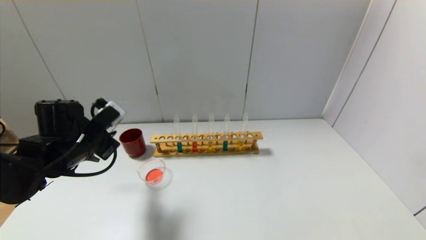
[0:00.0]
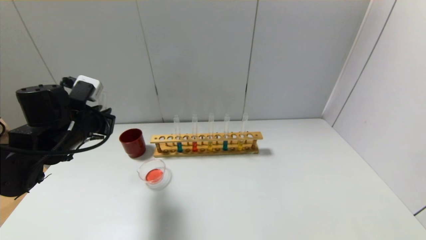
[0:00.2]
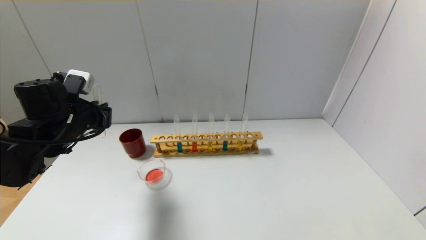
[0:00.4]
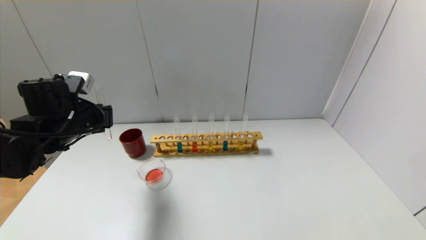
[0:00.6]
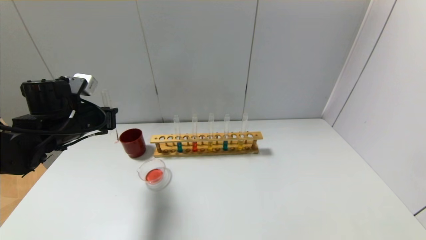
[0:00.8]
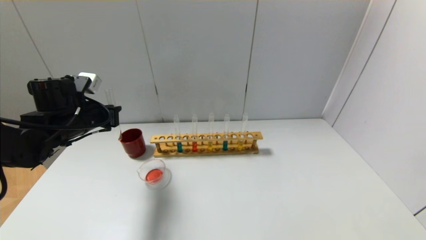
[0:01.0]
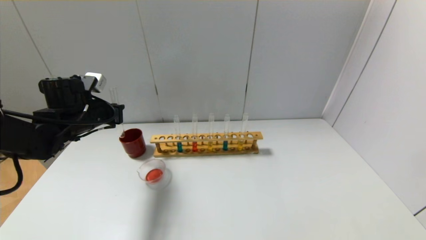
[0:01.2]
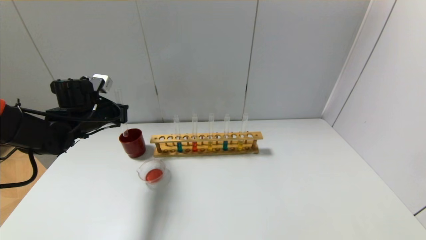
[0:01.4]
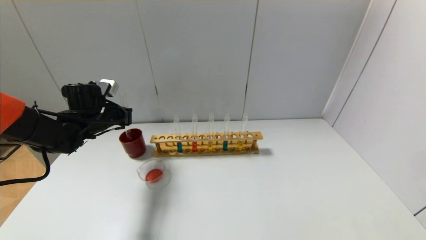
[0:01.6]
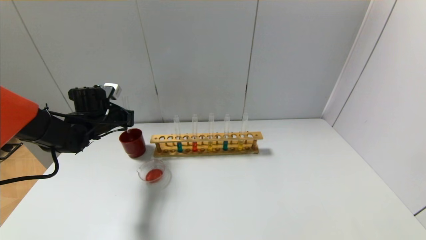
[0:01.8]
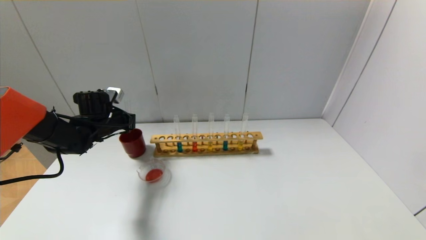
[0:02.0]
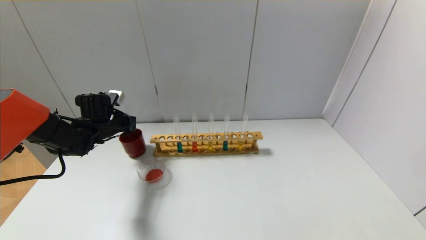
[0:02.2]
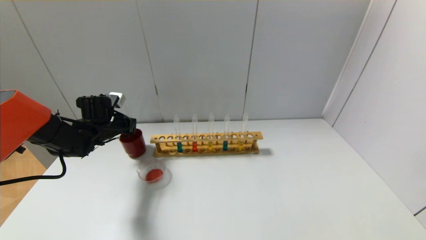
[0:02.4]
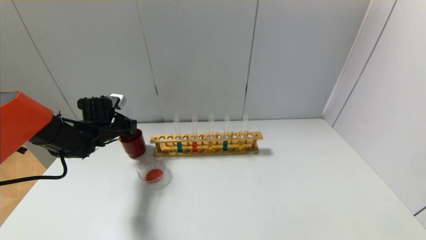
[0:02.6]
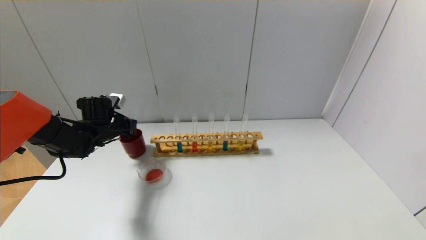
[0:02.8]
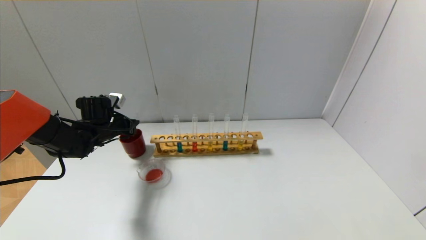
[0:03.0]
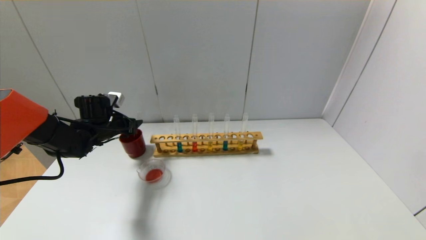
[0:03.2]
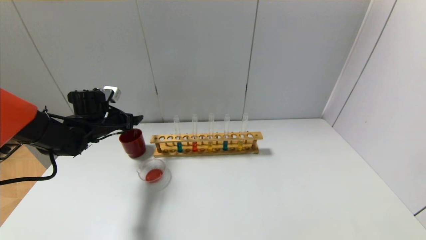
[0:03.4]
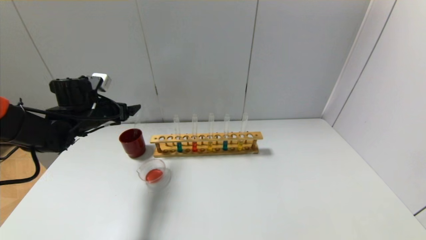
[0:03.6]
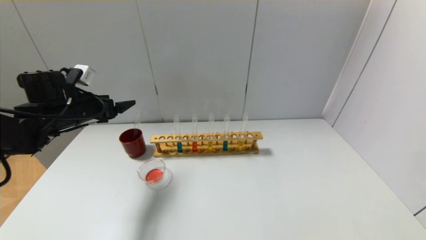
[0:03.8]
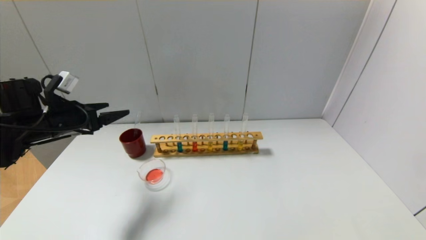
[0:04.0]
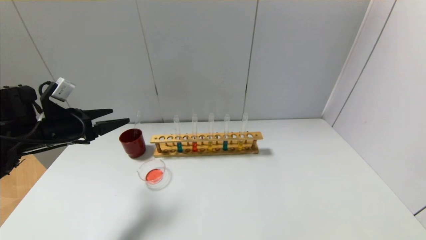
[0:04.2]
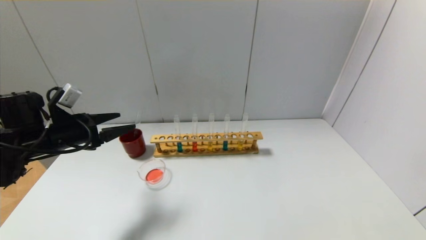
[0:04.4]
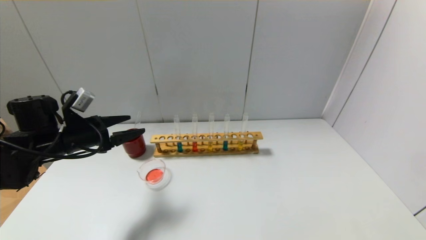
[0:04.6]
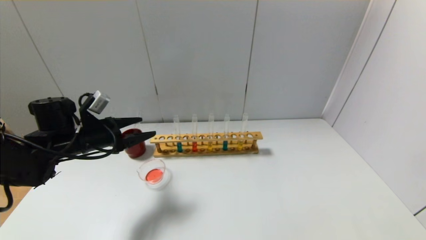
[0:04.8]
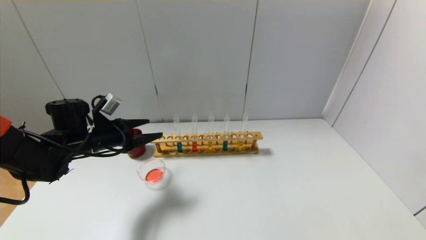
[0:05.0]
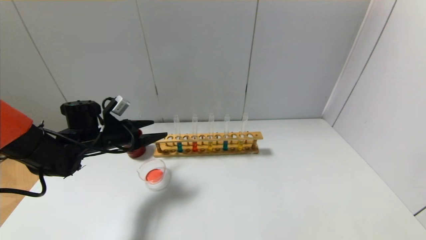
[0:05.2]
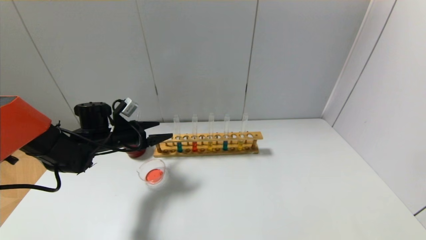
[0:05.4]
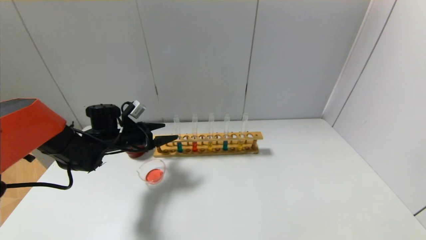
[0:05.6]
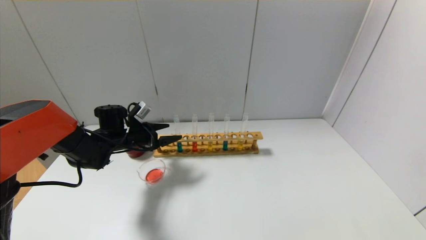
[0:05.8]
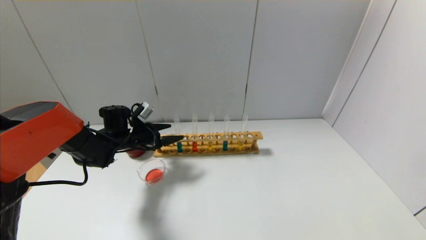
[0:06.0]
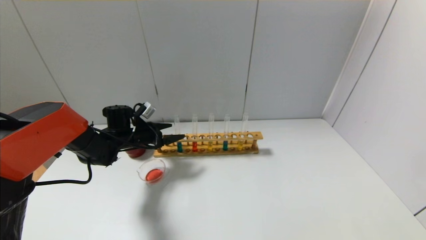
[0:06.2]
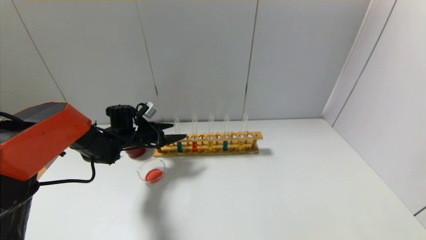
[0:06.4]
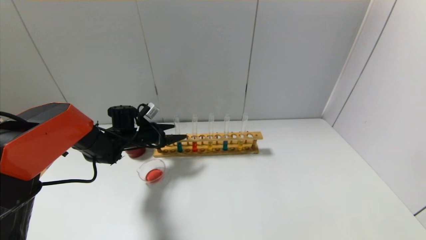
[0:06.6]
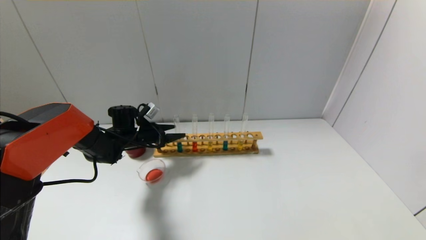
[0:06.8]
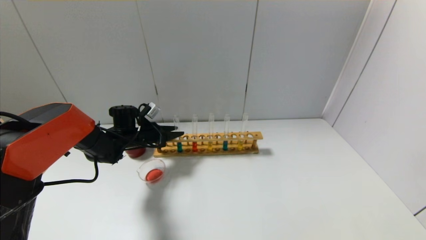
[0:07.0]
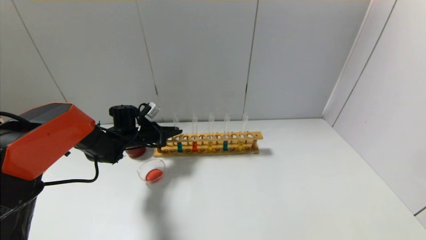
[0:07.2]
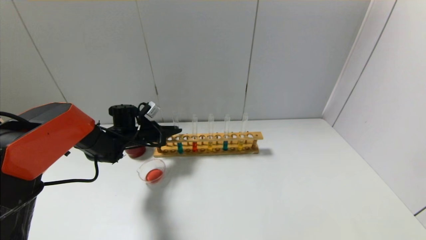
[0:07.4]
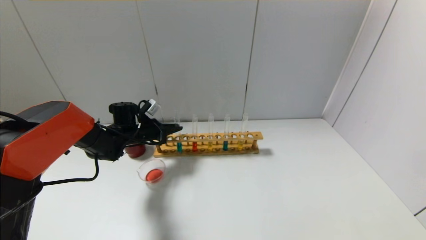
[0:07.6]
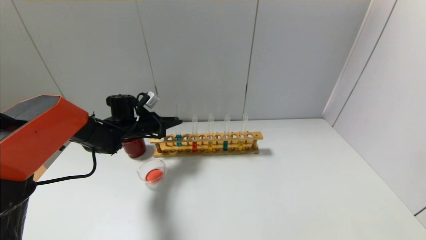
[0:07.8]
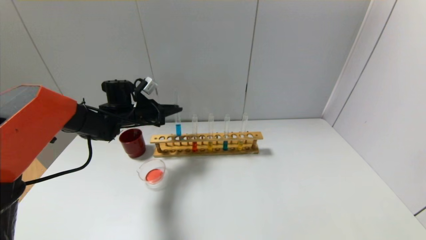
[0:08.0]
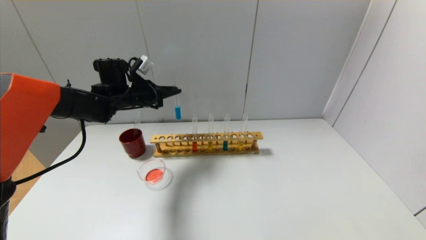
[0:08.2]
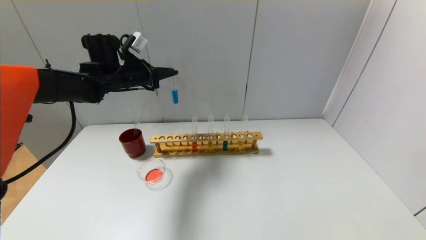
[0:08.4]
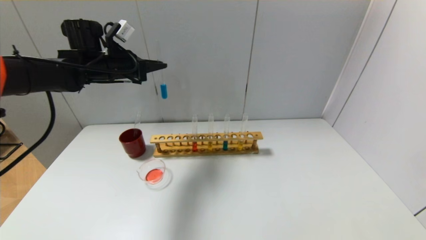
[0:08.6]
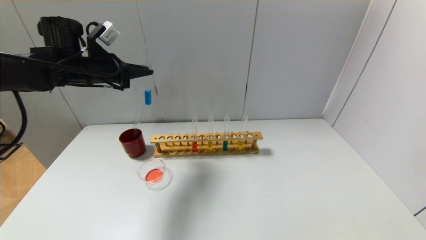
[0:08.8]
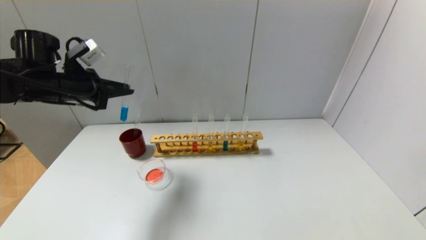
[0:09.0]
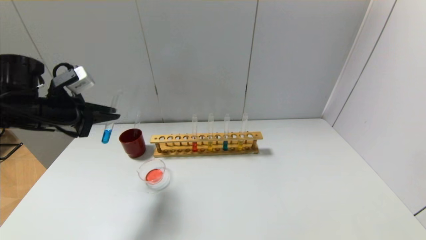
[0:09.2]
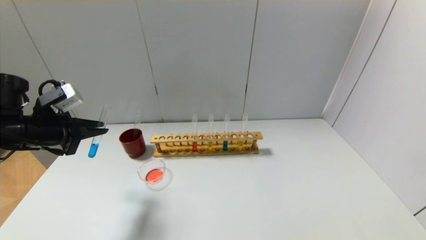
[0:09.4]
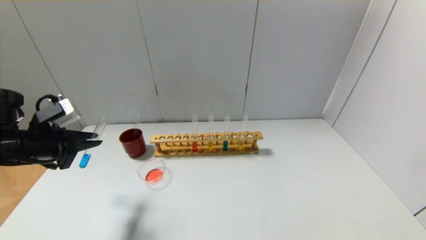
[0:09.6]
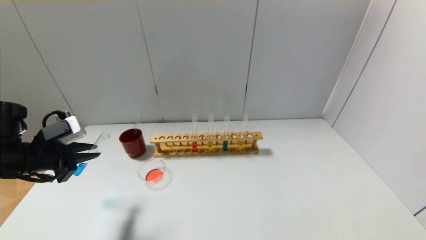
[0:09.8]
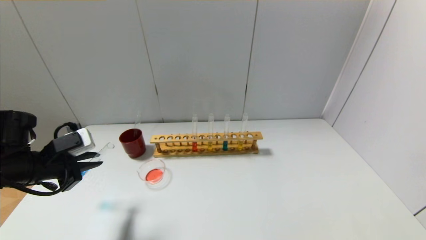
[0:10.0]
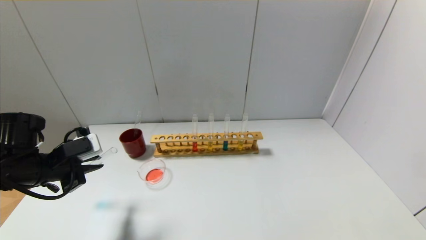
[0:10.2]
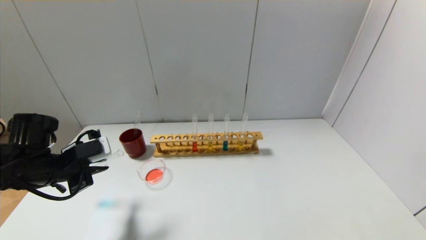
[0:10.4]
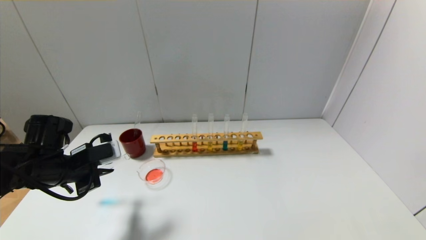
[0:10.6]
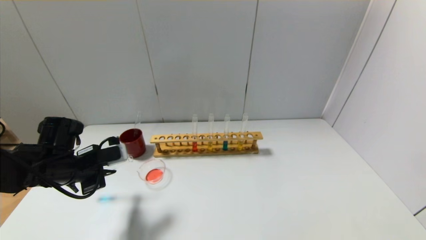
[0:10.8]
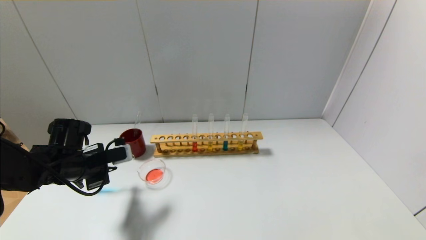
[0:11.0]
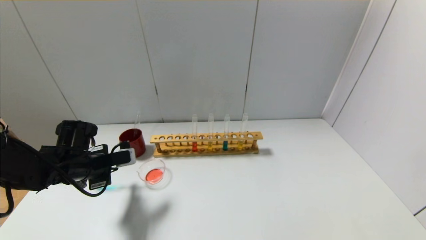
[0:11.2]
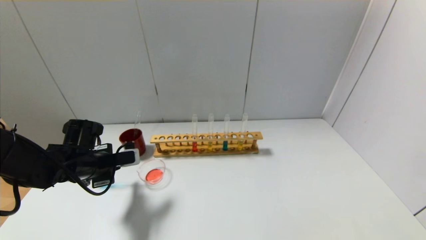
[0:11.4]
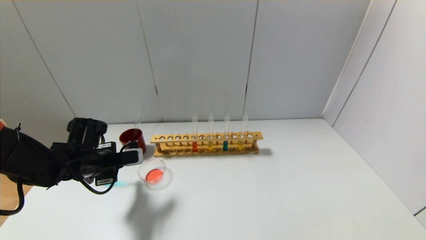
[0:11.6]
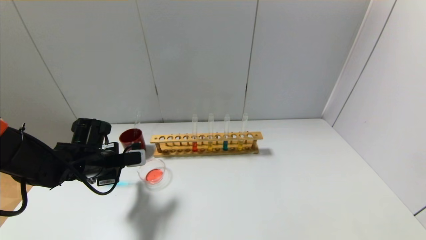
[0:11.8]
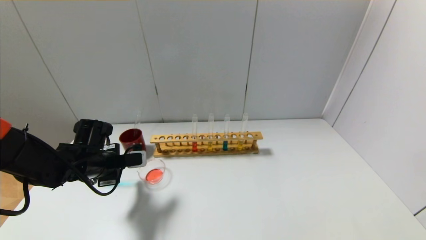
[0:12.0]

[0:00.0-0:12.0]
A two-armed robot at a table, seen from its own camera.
Step, 0.0 to 3.0 s: Place the test tube into the brown cup with the left gripper.
Step, 3.2 to 7.2 s: Grasp the blue reagent with the left gripper.
0.0 to 1.6 s: The left gripper goes approximately 10 cm forward.
1.6 to 3.0 s: The left gripper opens up.
3.0 to 4.4 s: The left gripper is displaced backward and upward by about 15 cm, and opens its fingers.
4.4 to 6.0 s: The left gripper is displaced forward, downward and to the right by some 15 cm.
6.0 to 7.6 s: The left gripper closes.
7.6 to 9.0 s: The left gripper heads upward, backward and to the left, covering approximately 20 cm.
9.0 to 10.4 s: The left gripper heads downward and backward, covering roughly 15 cm.
10.4 to 12.0 s: The left gripper heads forward, covering some 5 cm.

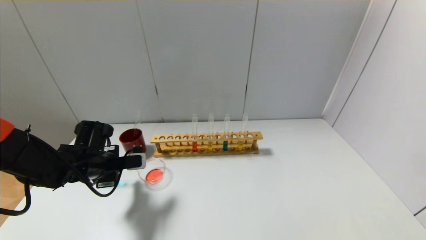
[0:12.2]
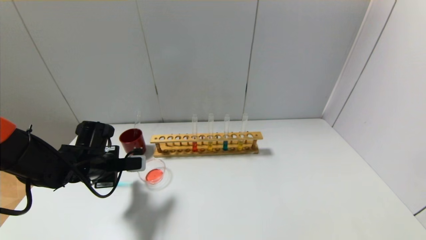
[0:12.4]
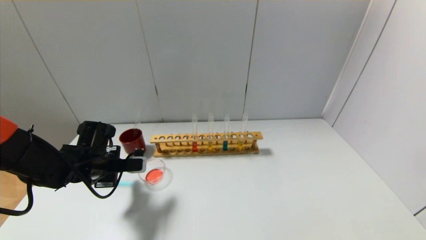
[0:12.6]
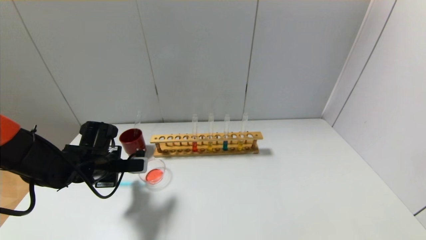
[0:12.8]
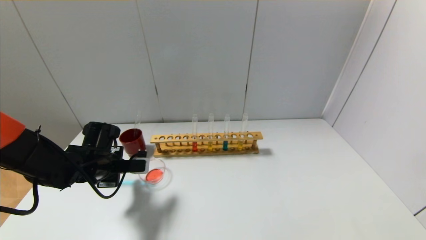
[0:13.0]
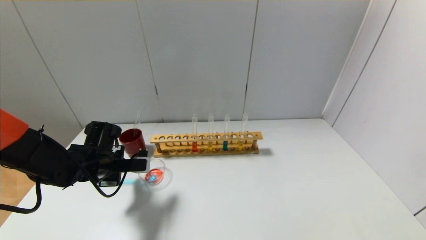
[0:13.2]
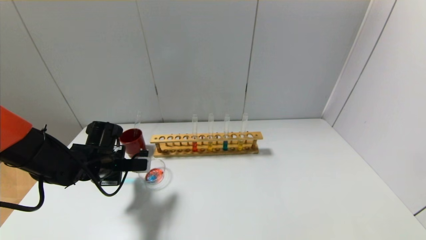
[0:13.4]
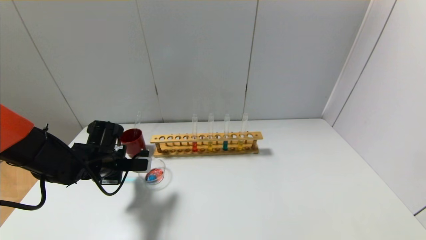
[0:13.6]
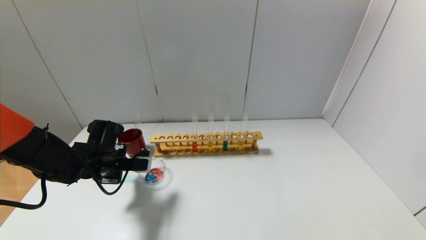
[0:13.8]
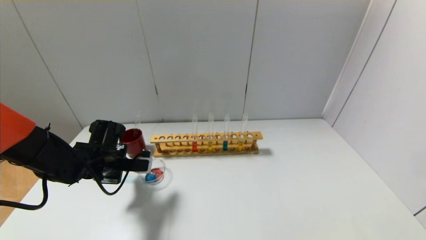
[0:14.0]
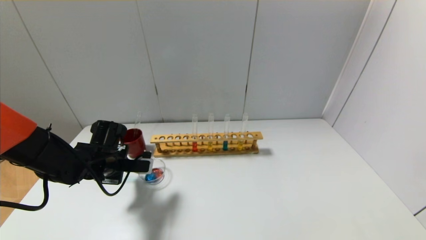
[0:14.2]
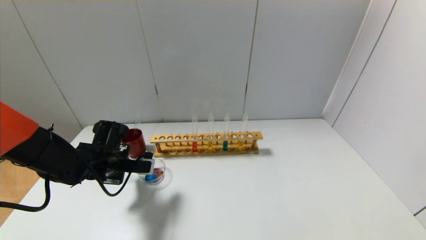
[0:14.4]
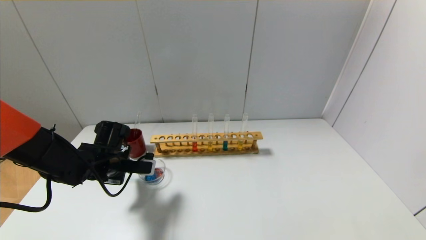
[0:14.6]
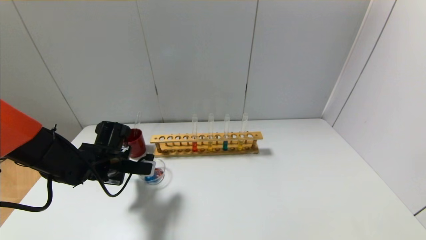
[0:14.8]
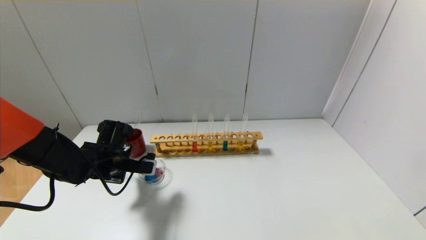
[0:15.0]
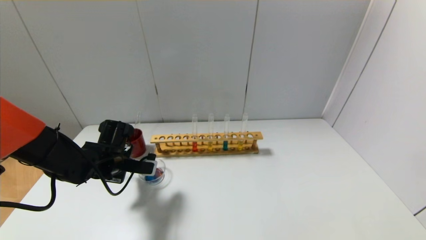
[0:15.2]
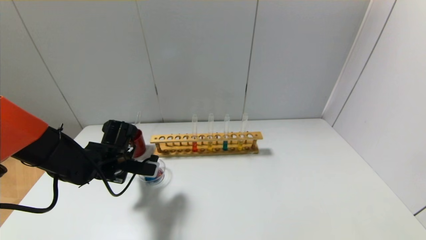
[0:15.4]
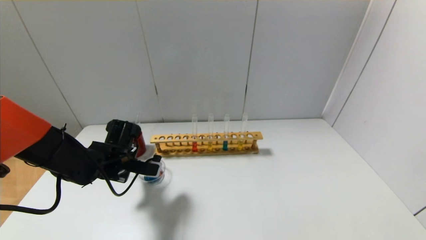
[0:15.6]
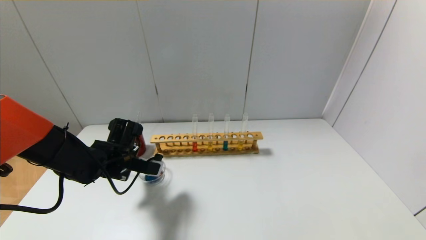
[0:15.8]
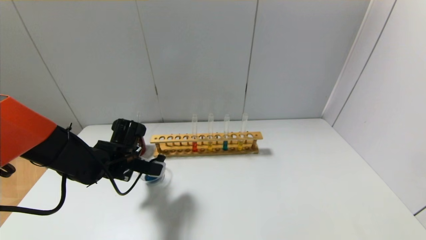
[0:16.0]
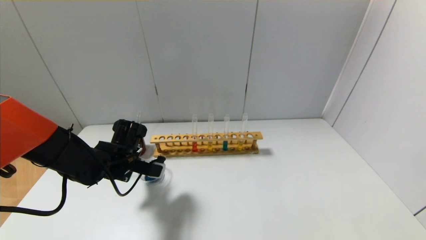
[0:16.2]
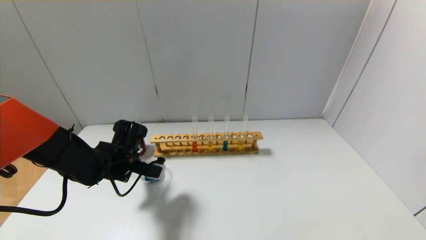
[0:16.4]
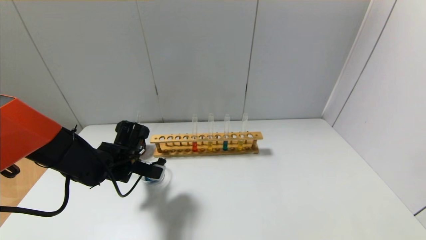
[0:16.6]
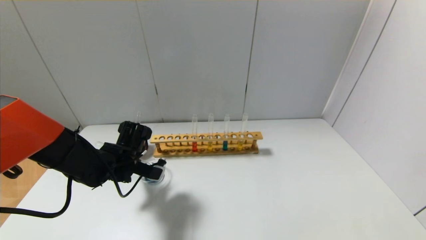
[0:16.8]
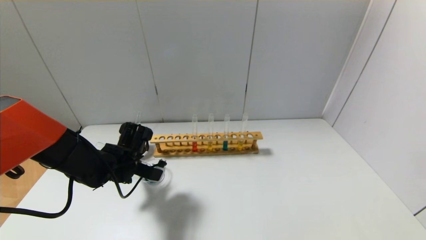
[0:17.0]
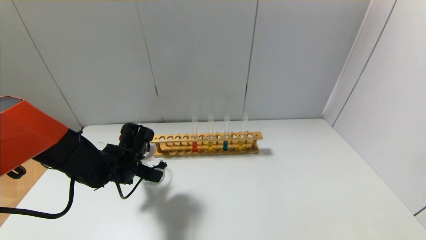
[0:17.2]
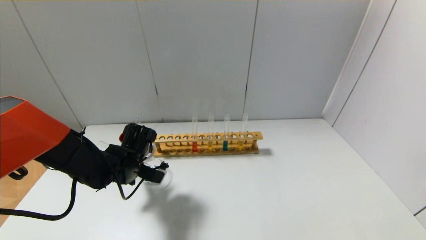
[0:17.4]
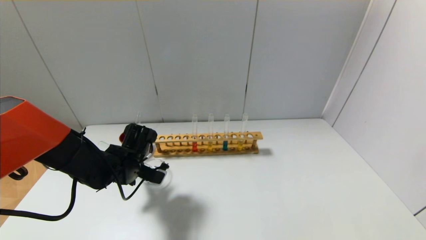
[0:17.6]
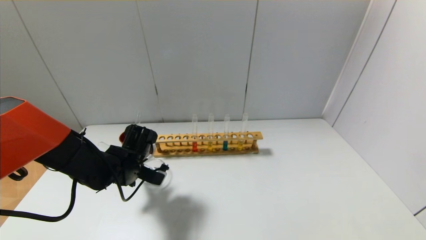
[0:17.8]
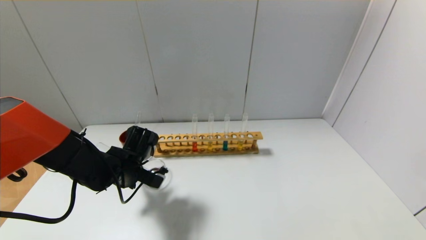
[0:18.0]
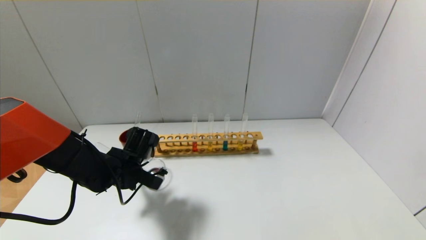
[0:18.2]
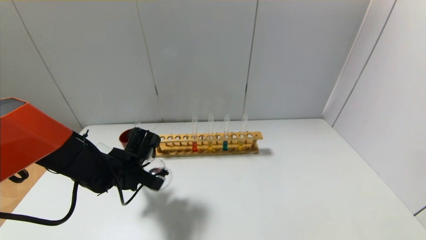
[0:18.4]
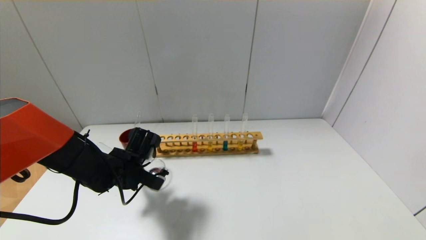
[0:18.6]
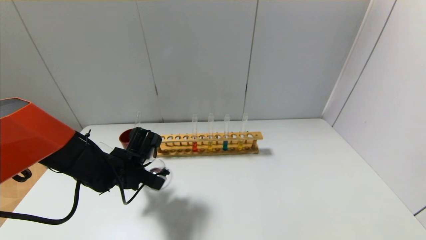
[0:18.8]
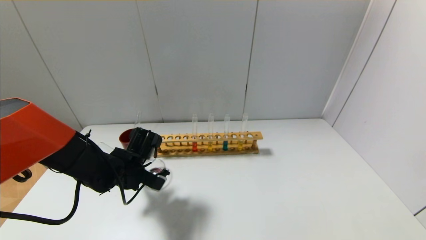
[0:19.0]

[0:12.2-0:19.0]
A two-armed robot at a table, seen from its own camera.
12.2 to 15.0 s: The grippers make only small movements.
15.0 to 16.2 s: The grippers make only small movements.
16.2 to 19.0 s: The grippers move only a little.
